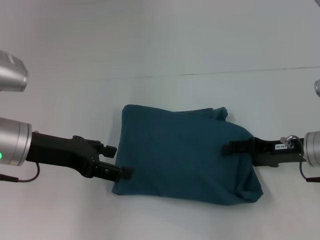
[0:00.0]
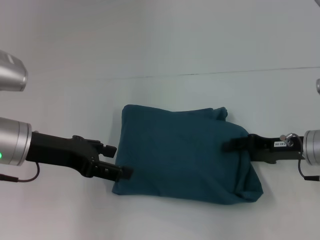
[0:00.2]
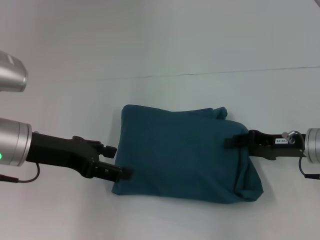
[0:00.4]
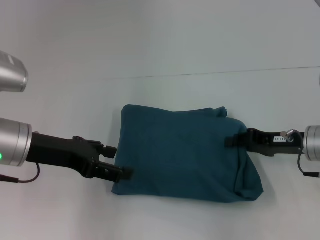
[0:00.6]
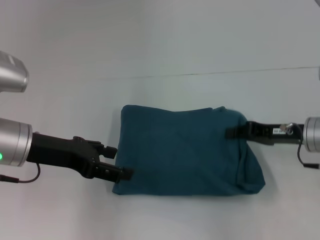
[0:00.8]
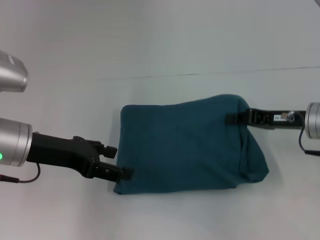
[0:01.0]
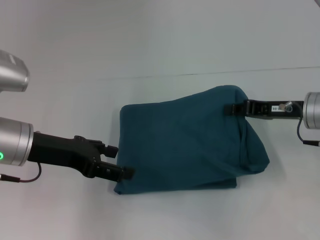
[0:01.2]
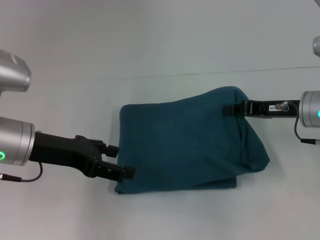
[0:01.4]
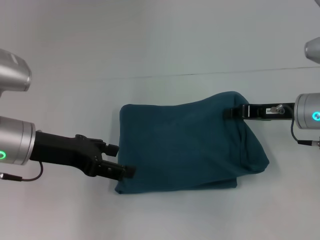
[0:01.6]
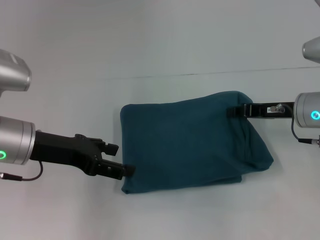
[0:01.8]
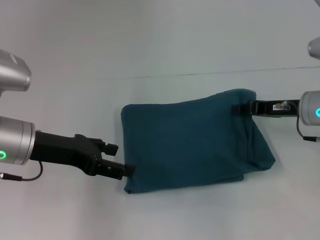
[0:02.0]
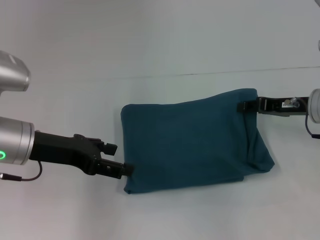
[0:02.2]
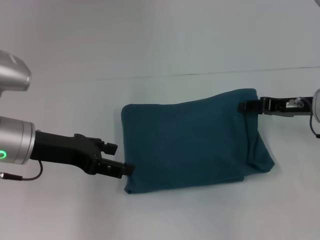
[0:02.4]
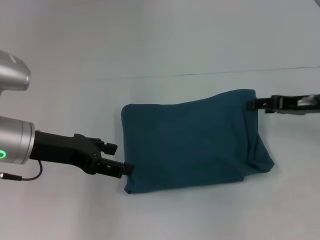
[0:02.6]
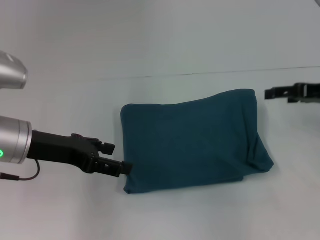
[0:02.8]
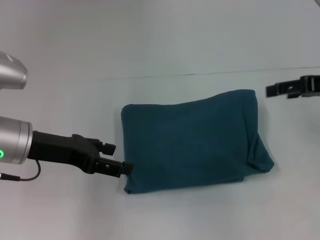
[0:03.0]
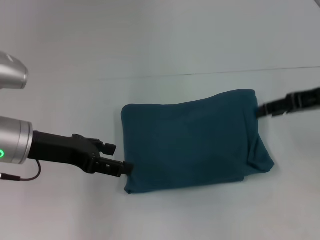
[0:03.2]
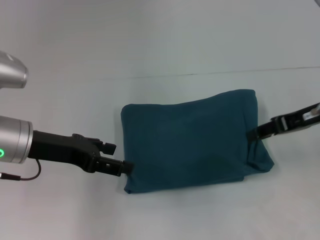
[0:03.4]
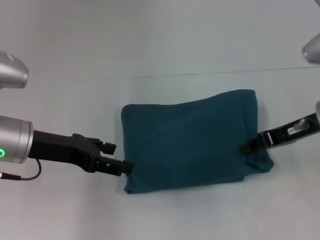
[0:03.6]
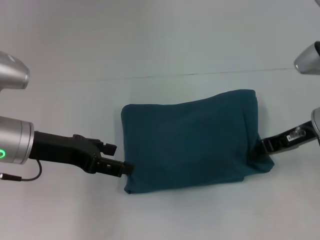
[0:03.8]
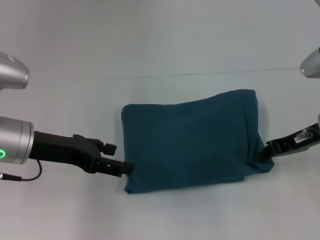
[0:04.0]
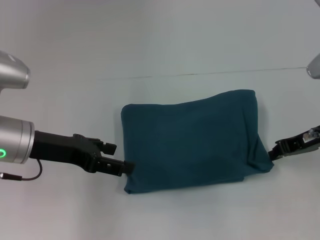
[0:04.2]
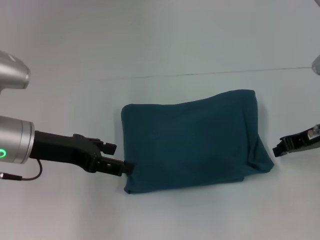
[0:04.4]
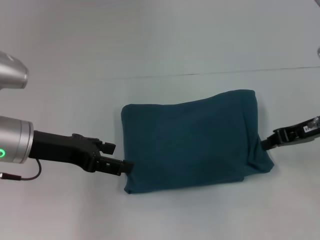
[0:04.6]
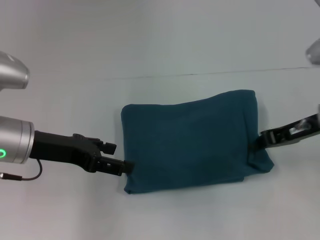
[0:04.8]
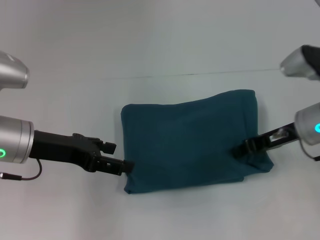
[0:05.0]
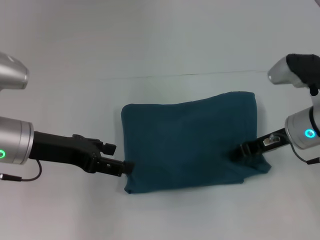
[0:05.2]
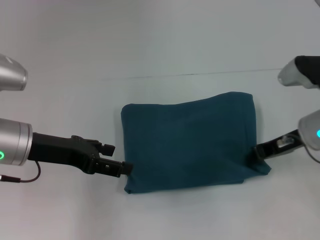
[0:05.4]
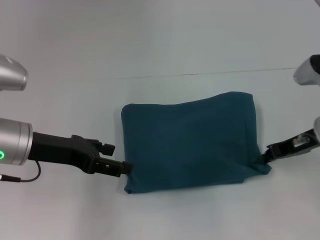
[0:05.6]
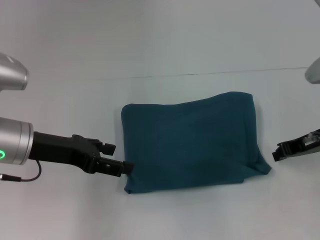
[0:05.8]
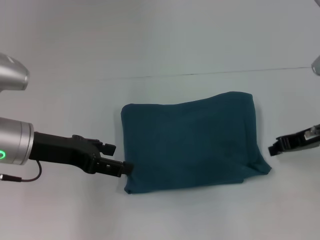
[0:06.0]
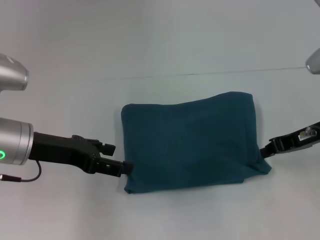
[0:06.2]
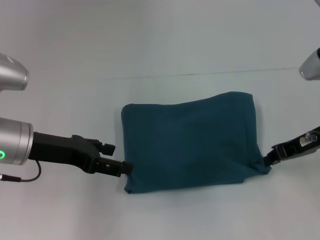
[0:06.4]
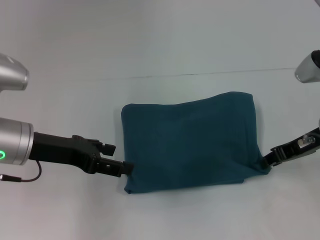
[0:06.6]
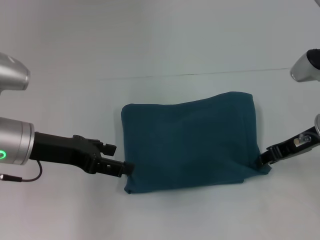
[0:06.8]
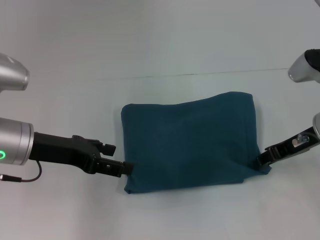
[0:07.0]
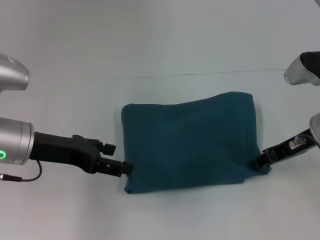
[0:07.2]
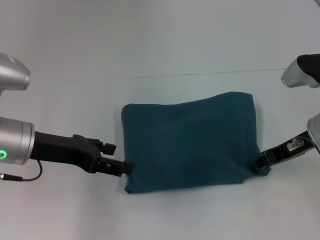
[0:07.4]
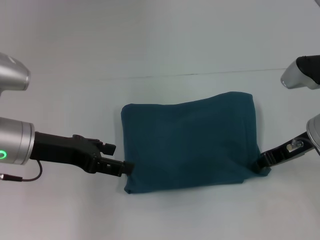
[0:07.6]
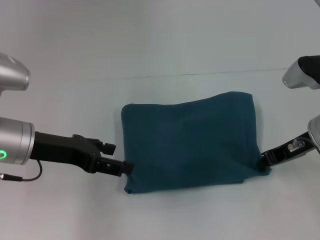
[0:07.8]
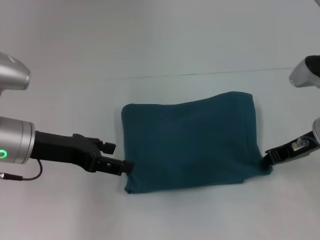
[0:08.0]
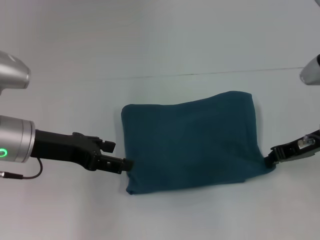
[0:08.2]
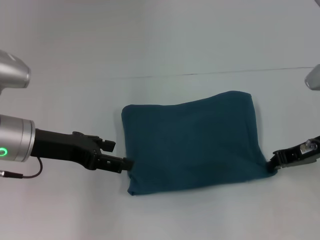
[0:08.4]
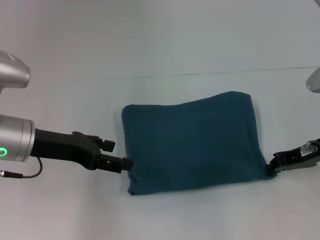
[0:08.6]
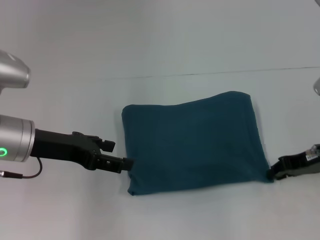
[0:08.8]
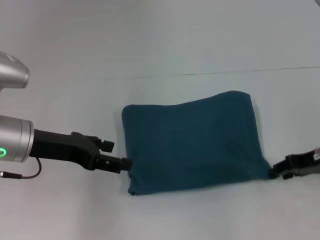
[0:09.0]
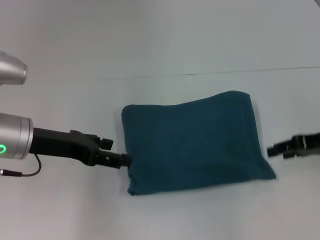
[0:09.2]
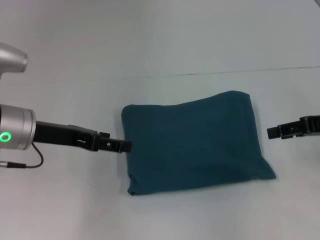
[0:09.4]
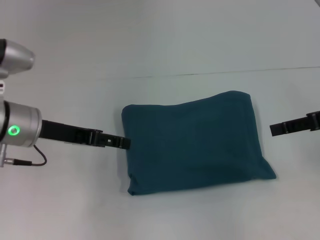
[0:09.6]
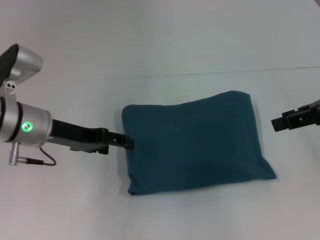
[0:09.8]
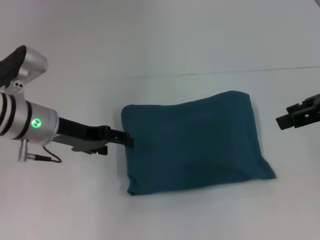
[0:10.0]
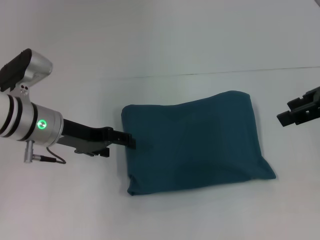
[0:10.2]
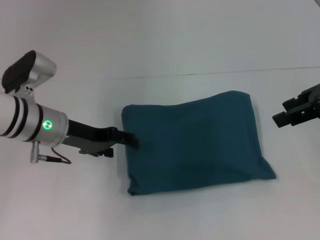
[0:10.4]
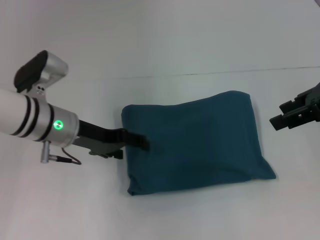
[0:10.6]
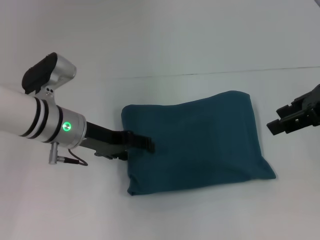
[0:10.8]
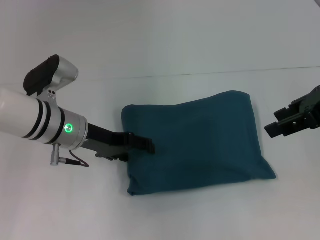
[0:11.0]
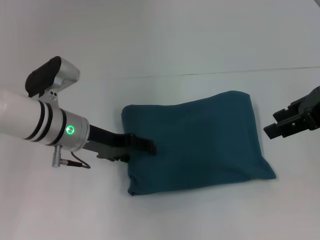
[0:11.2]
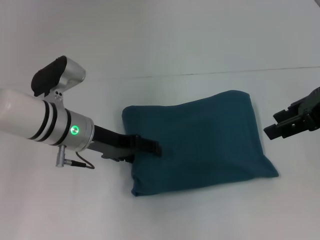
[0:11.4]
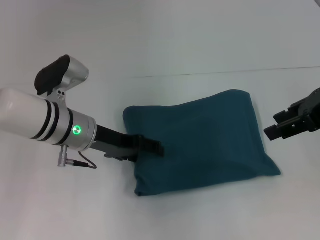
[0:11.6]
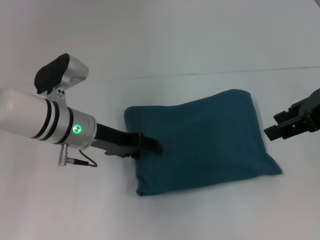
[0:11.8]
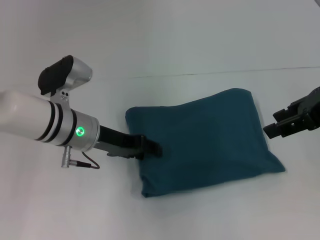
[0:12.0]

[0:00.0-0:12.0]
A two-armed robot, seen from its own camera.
0:00.0 to 0:01.6: The right gripper shifts by roughly 5 cm, and closes.
0:01.6 to 0:03.0: The right gripper travels upward and to the right by roughly 10 cm, and opens up.
0:03.0 to 0:04.4: The right gripper travels downward by roughly 5 cm, and closes its fingers.
0:04.4 to 0:06.0: The grippers make only small movements.
0:06.0 to 0:07.6: The right gripper opens up.
0:07.6 to 0:09.0: The right gripper goes some 5 cm to the right.
0:09.0 to 0:10.4: The right gripper travels upward by approximately 15 cm, and opens up, while the left gripper ends up some 5 cm from where it was.
0:10.4 to 0:12.0: The grippers make only small movements.

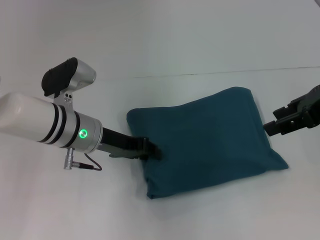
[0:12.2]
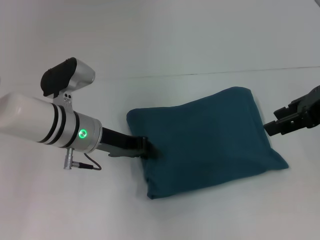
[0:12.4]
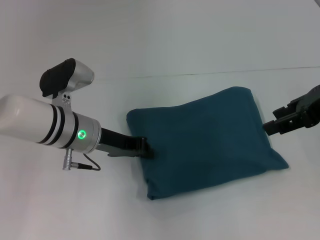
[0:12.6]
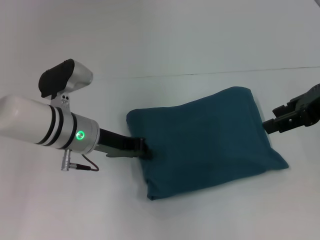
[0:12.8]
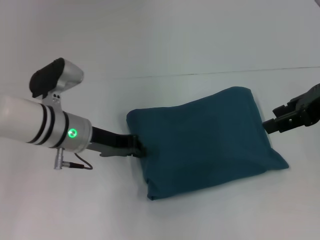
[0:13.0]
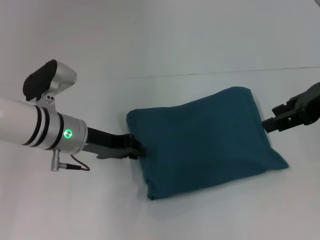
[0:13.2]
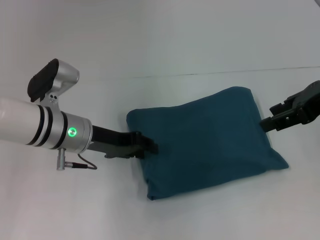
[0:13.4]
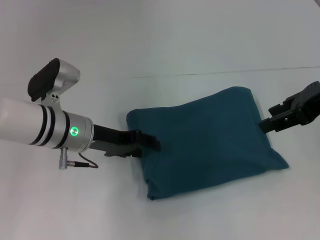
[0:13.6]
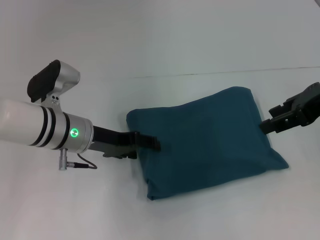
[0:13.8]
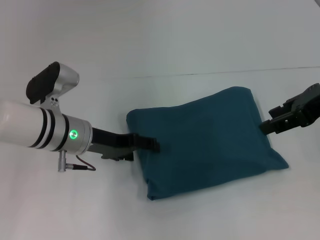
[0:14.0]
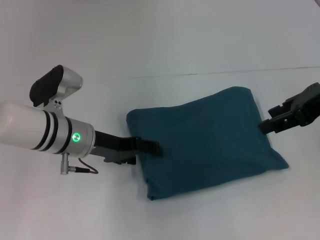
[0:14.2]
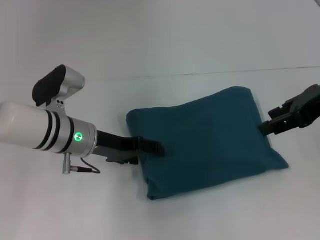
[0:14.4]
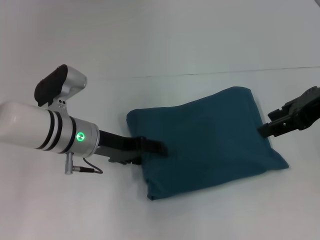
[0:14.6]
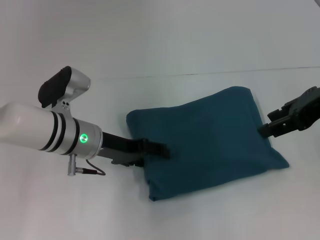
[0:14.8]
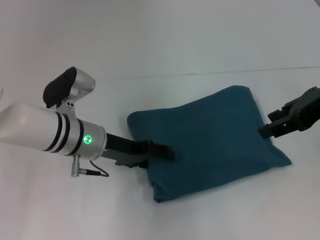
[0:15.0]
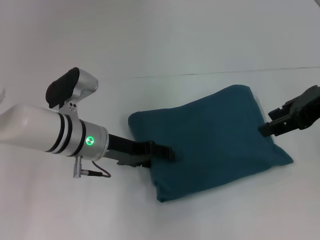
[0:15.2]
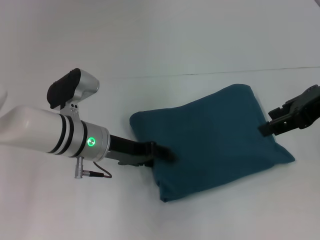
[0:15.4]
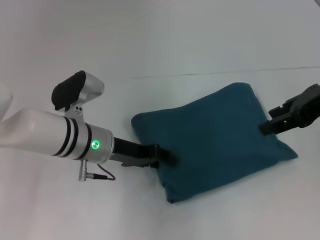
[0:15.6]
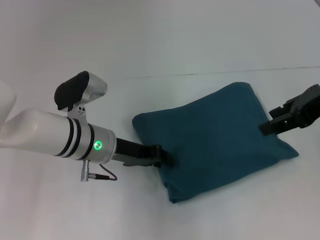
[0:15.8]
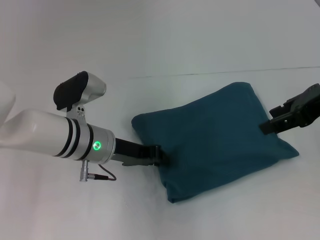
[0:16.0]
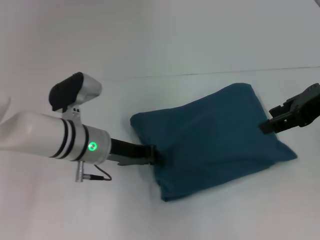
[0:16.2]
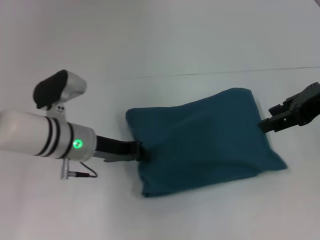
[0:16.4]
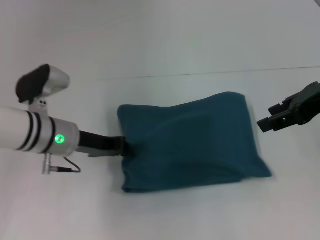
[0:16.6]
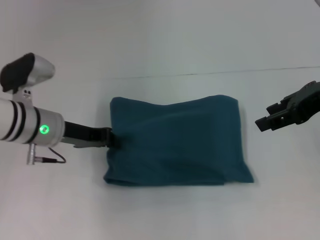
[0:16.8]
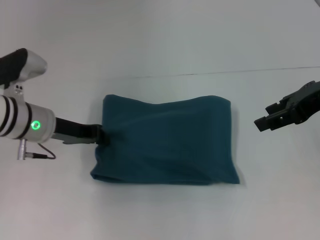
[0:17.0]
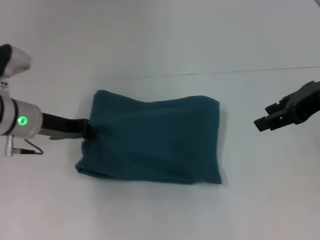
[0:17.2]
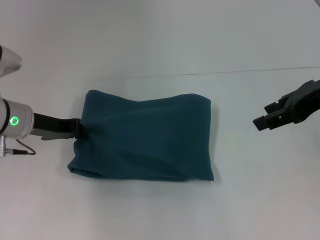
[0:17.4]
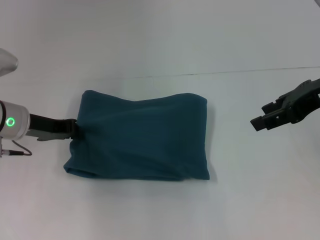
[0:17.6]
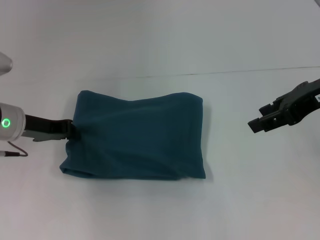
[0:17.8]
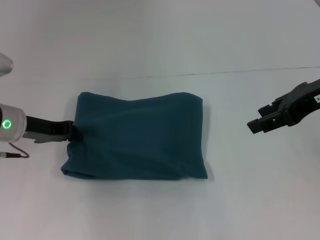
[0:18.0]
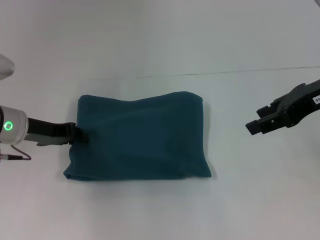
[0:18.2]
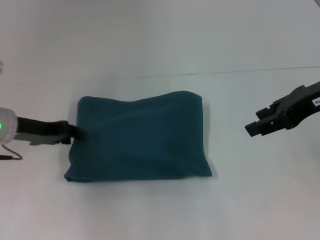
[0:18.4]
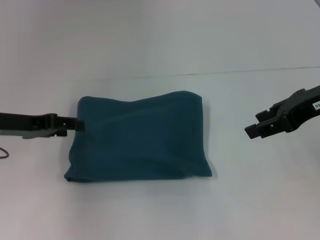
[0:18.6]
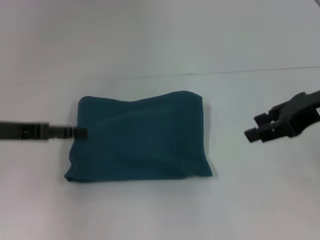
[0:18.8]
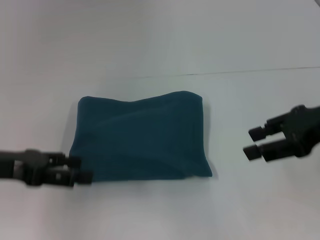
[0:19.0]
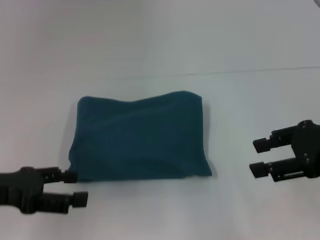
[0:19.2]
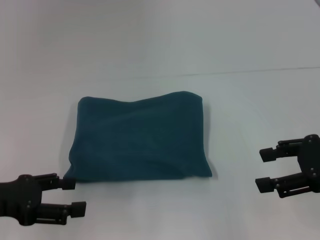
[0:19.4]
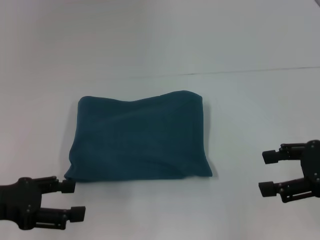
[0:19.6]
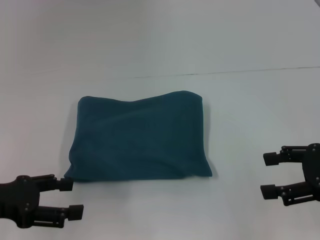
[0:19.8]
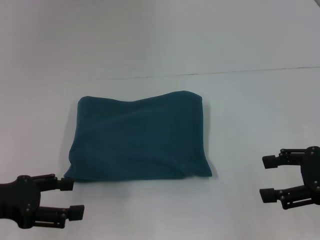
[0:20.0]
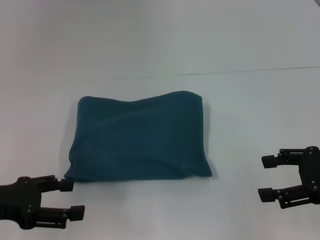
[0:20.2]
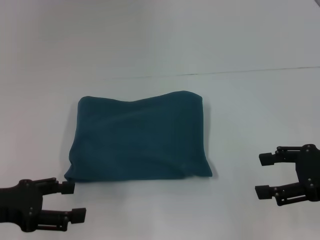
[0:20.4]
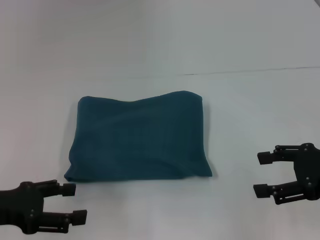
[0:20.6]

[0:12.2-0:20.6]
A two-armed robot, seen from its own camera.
0:12.2 to 0:13.6: The grippers stay close to where they were, moving slightly.
0:13.6 to 0:15.0: The left gripper opens.
0:15.0 to 0:16.4: The left gripper closes its fingers.
0:16.4 to 0:17.8: The left gripper goes some 10 cm to the left.
0:17.8 to 0:19.2: The left gripper heads backward, covering some 15 cm, and opens, while the right gripper heads backward, covering some 5 cm.
0:19.2 to 0:20.6: The right gripper heads downward, covering about 5 cm.

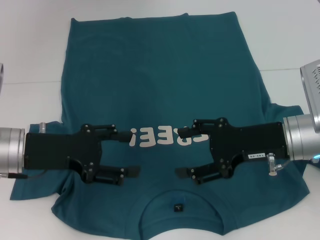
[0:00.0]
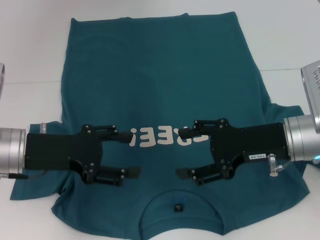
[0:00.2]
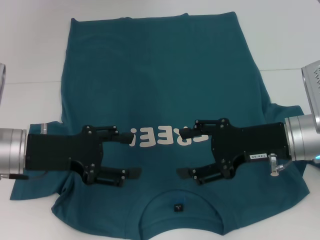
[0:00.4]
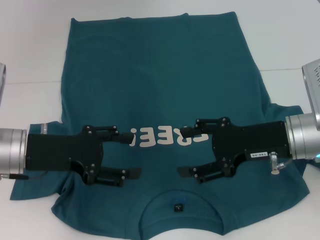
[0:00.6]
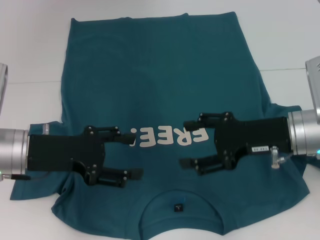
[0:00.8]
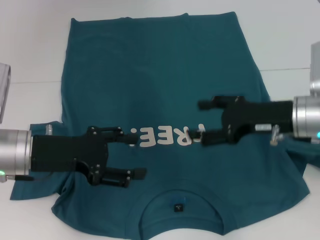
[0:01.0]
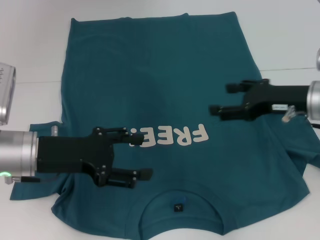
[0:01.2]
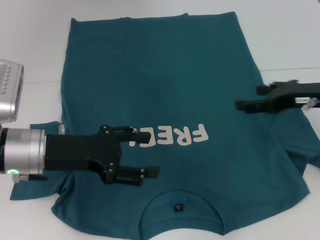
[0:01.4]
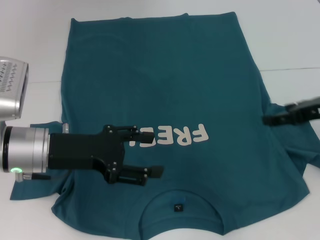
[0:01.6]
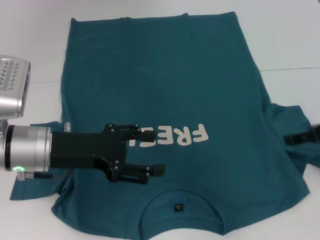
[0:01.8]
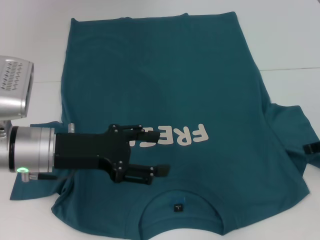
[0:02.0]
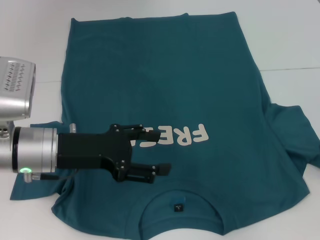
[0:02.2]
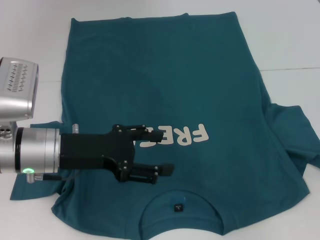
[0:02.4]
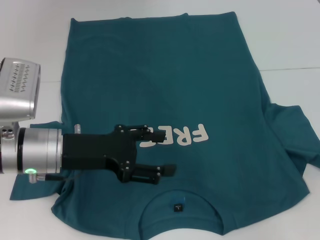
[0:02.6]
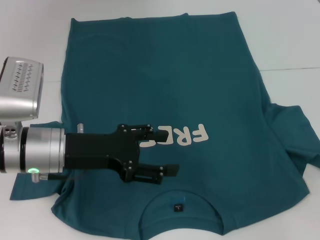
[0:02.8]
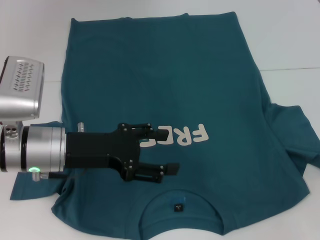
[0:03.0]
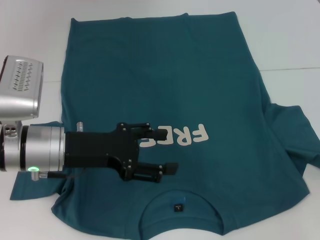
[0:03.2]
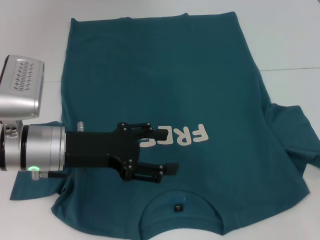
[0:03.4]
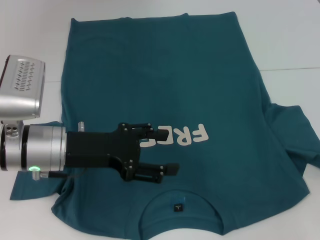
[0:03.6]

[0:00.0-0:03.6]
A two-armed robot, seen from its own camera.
0:00.0 to 0:01.8: The right gripper moves to the right, some 10 cm.
0:01.8 to 0:03.6: The right gripper shifts approximately 15 cm to the right and backward.
